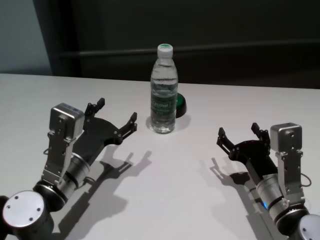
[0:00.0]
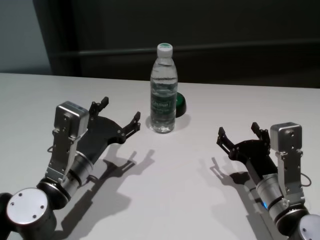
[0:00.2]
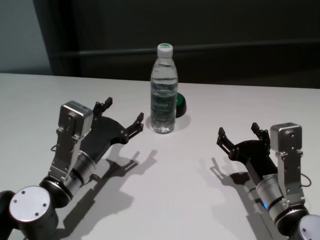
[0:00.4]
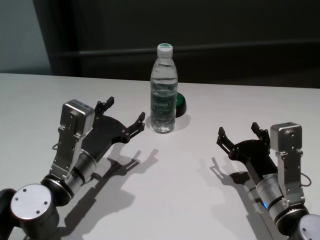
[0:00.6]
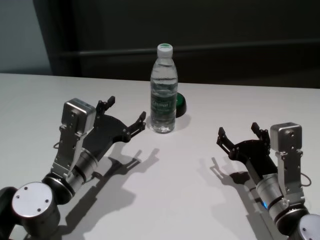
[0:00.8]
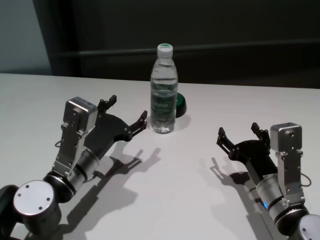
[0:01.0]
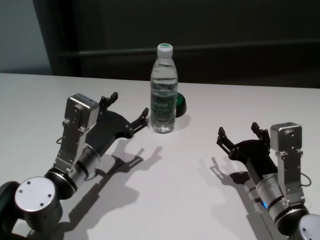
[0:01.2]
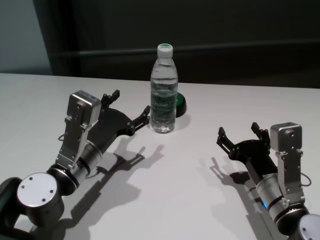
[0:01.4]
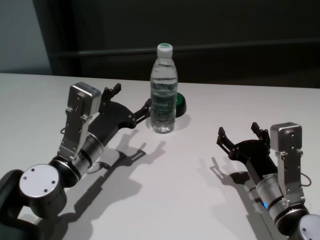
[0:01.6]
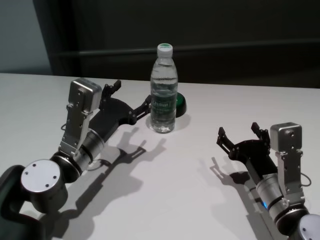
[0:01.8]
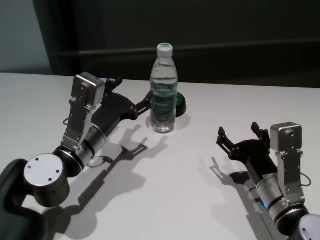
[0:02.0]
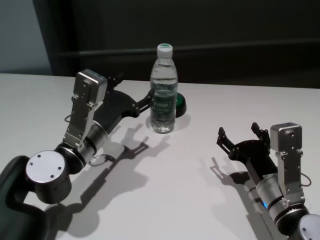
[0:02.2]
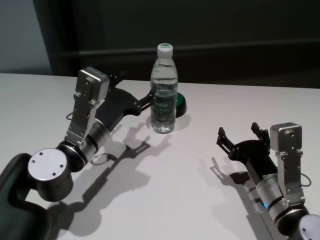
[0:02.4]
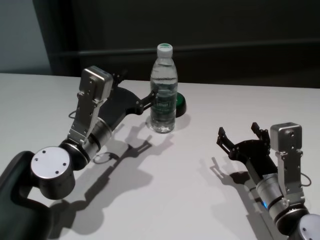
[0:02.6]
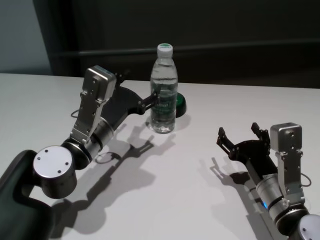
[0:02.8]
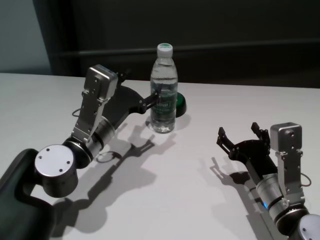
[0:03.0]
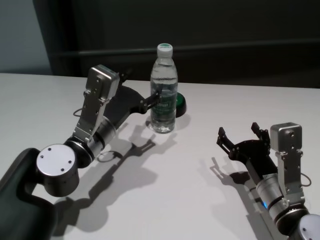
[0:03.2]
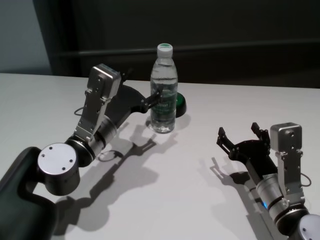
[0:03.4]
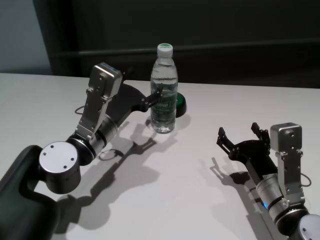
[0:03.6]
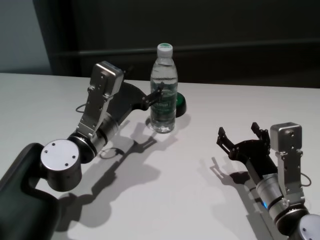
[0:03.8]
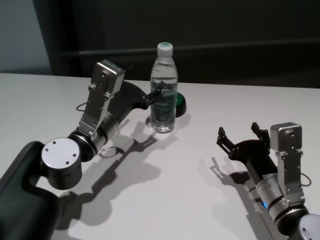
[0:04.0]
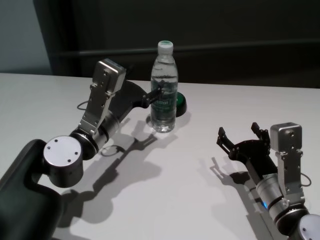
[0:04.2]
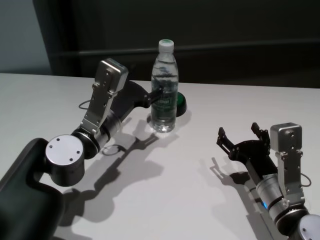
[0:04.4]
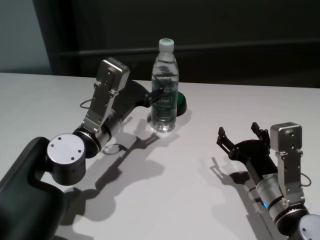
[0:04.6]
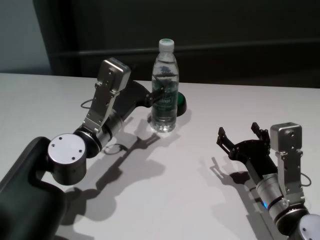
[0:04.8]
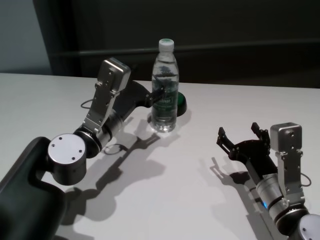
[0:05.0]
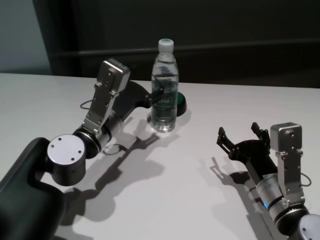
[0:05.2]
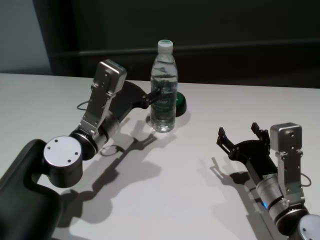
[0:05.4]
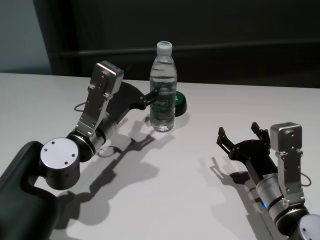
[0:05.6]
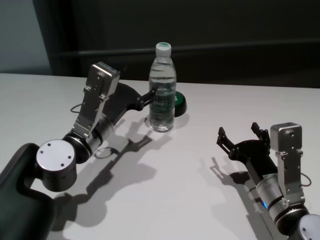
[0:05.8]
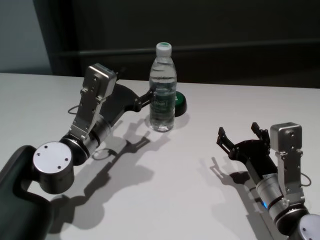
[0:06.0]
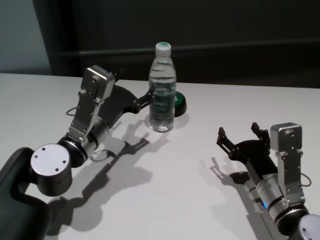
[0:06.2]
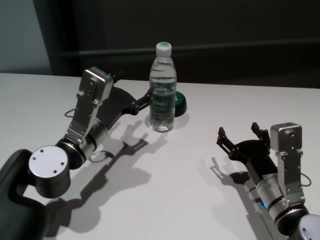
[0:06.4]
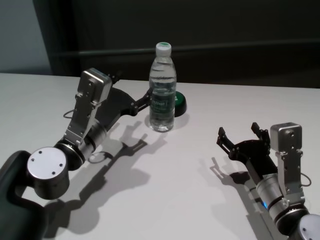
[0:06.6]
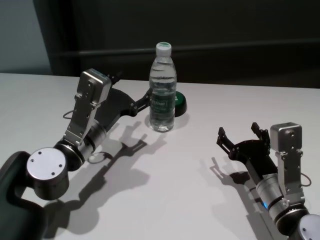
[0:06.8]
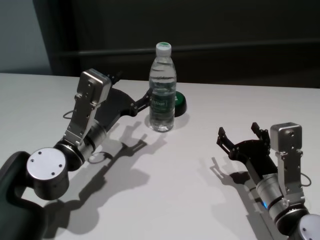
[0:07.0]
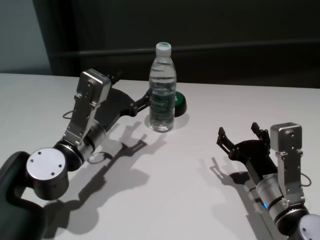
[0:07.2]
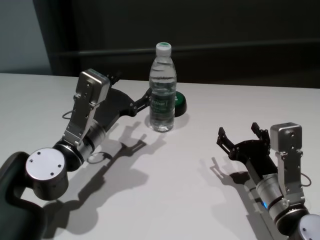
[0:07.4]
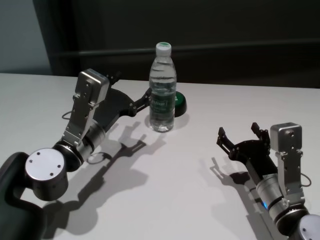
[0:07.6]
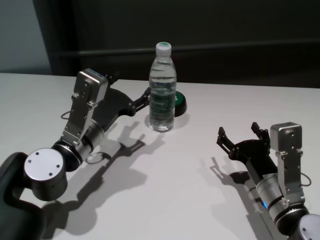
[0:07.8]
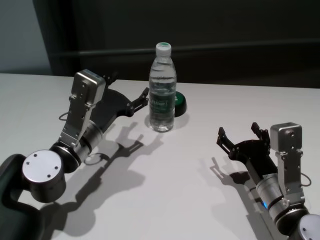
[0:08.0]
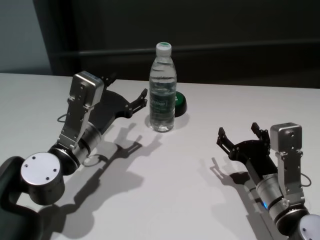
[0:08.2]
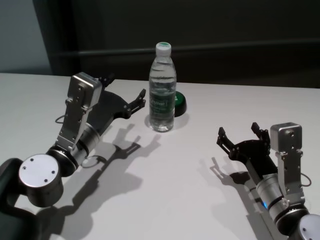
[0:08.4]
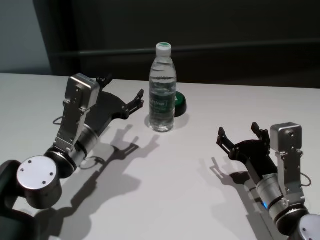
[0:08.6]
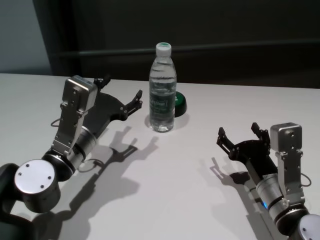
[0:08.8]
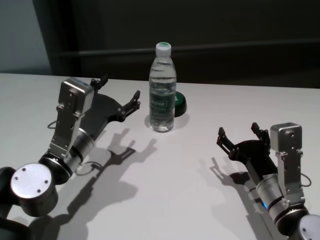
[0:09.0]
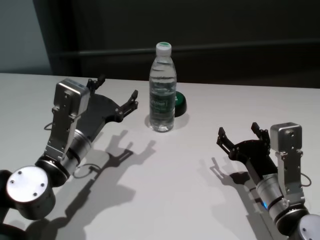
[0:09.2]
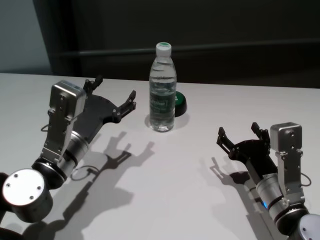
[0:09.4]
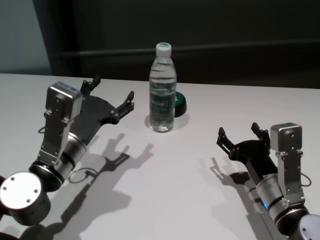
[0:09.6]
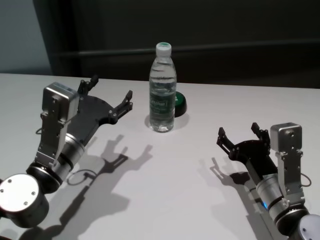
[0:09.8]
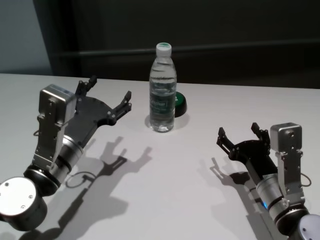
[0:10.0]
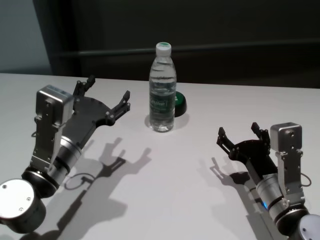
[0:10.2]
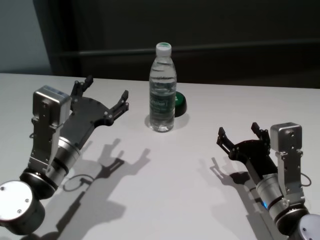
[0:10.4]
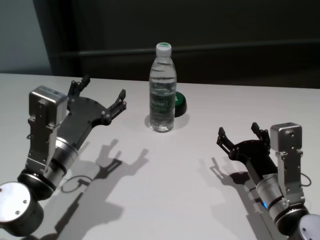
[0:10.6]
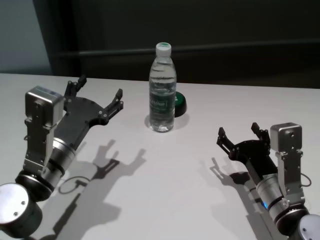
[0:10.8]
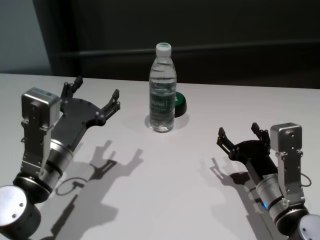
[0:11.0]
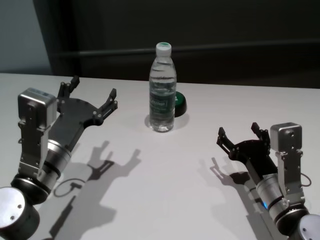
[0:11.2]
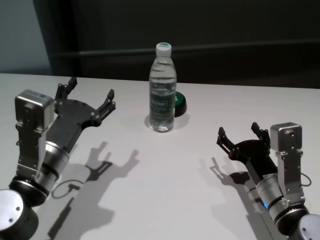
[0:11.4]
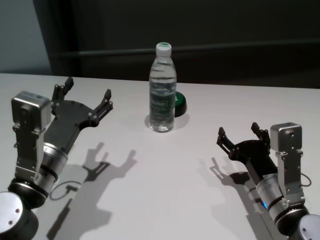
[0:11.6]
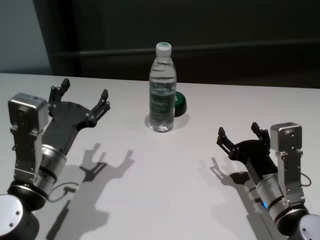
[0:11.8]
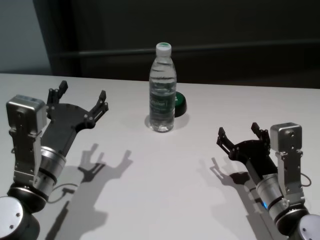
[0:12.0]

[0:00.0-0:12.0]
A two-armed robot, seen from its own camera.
Task of the whole recording: return to a safe position after touching an obstacle with your arm on the white table.
Step, 0:00.0 to 0:08.0: Touch the bottle with left gripper.

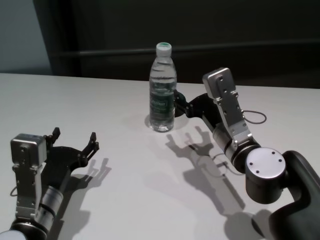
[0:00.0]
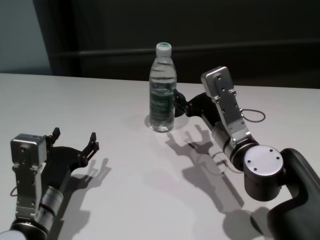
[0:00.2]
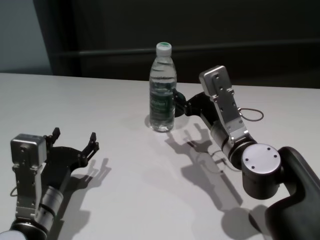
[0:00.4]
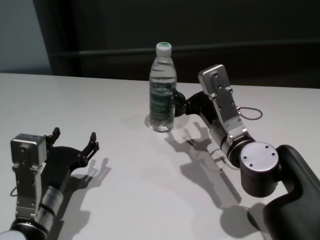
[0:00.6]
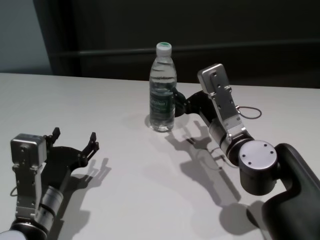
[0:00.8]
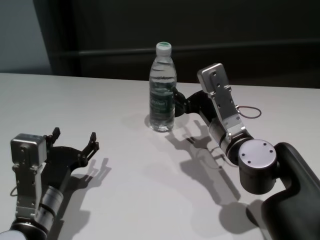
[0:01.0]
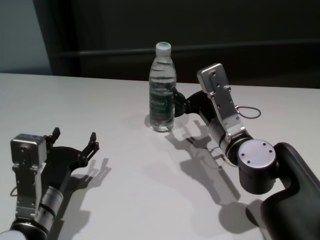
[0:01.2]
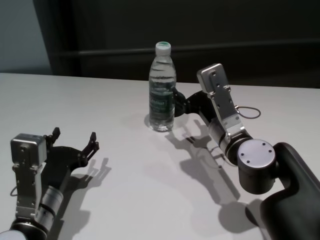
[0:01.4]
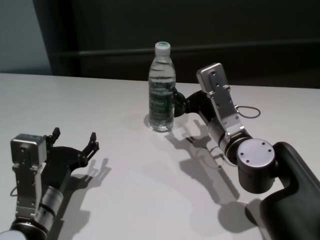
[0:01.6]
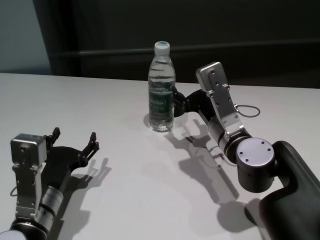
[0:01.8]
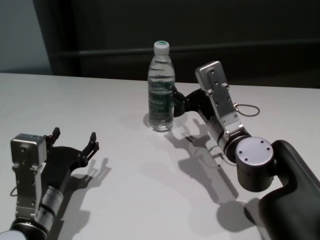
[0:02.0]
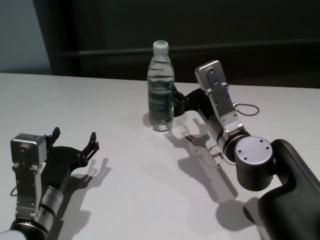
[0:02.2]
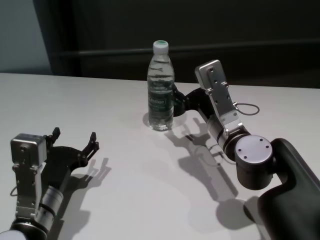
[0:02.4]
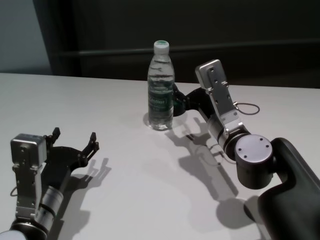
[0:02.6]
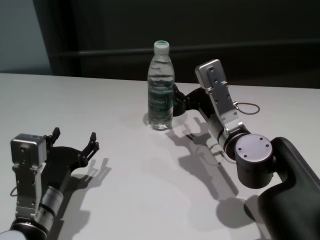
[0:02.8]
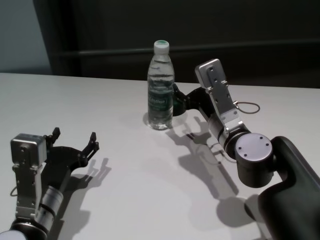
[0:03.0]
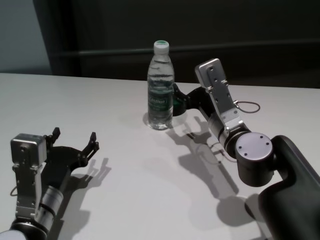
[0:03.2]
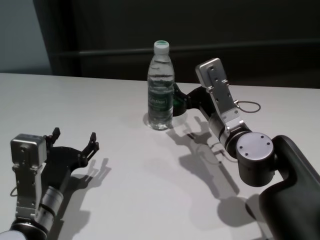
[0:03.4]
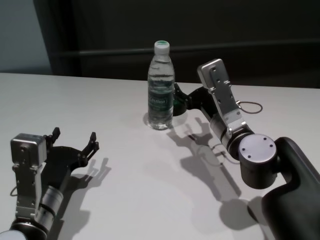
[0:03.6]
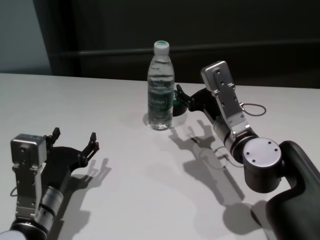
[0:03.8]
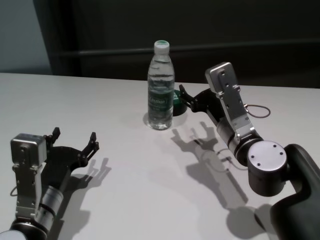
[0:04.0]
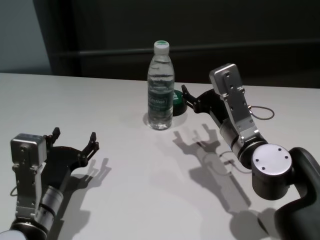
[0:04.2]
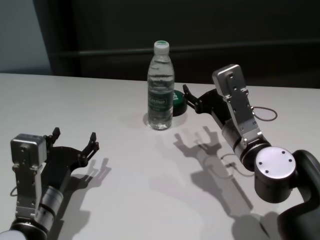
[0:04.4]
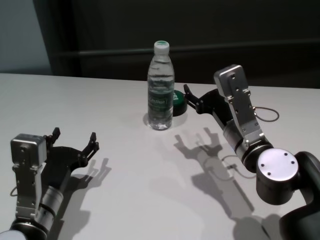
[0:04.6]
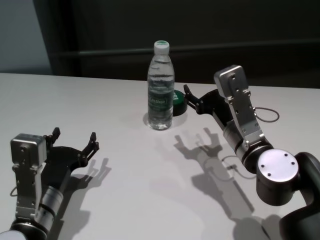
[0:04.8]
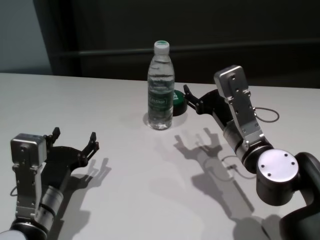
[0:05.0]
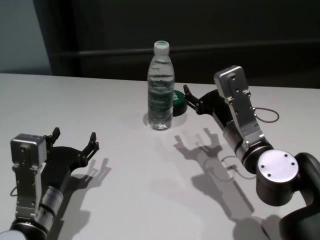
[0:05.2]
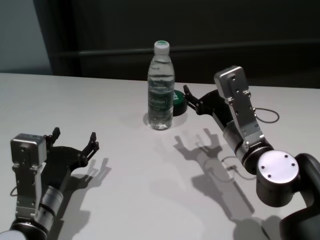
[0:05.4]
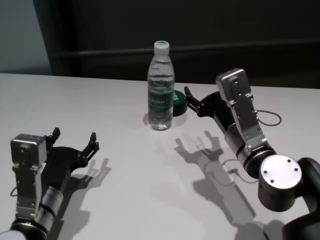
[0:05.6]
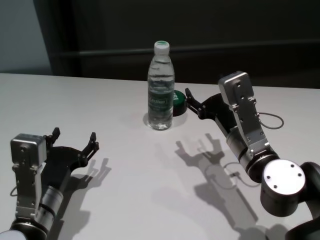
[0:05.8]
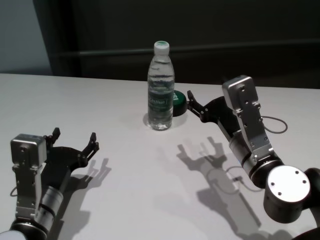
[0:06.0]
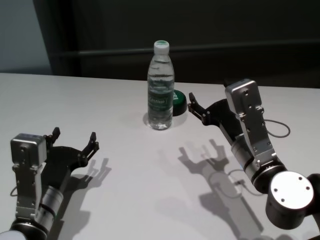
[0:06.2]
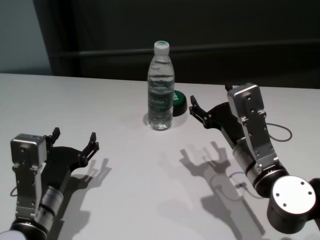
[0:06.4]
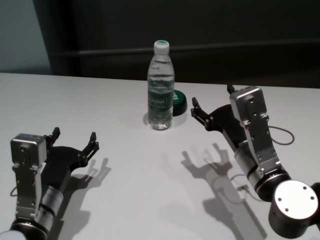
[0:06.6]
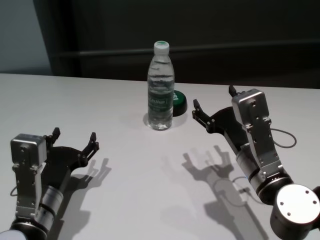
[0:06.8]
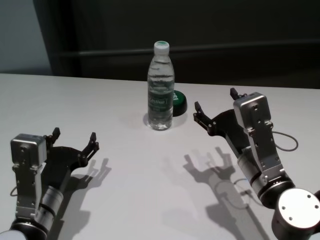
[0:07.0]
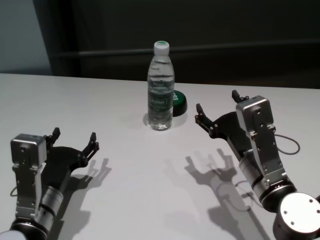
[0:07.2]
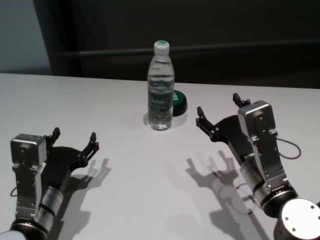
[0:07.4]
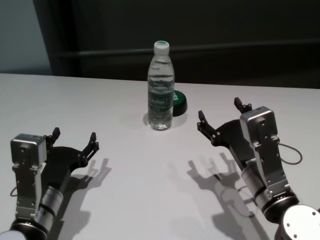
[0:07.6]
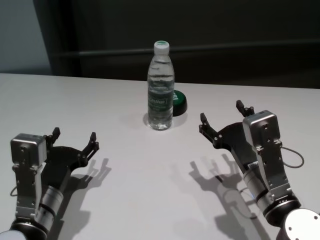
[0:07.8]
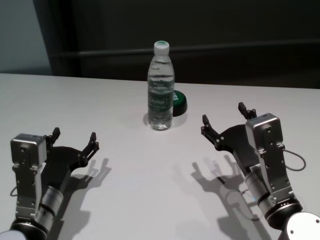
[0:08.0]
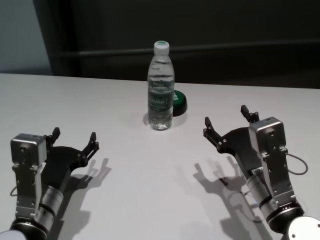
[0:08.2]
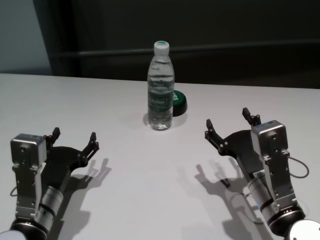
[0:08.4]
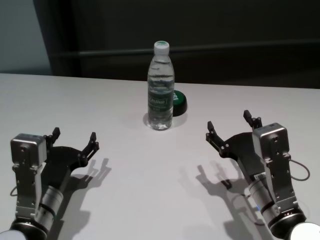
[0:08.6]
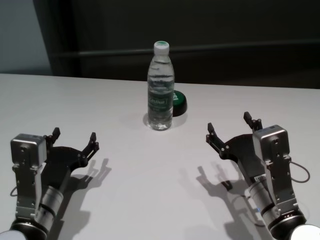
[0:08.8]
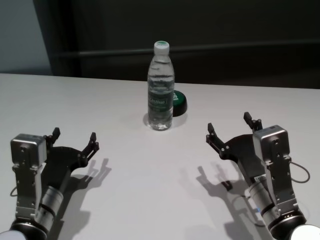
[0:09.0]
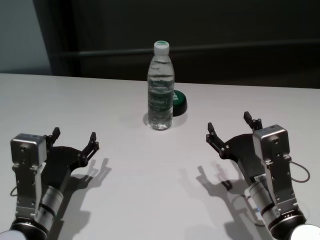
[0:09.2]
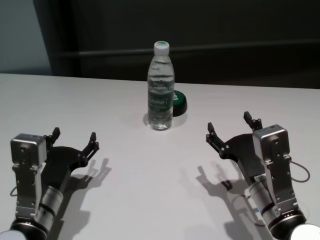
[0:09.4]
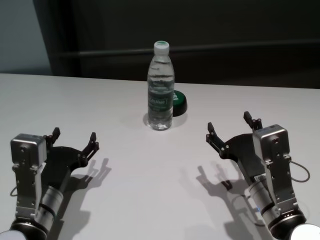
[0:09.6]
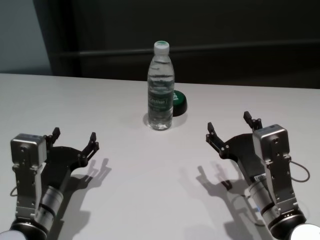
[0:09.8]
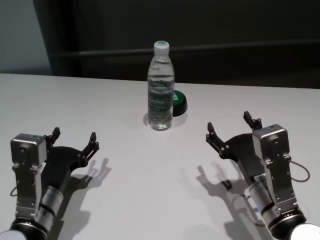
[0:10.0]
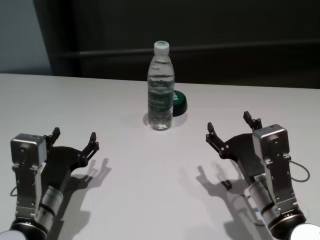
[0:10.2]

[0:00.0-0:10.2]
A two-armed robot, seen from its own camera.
Task of the whole recording: return to a safe position after touching an obstacle with your arm on the white table.
Step, 0:00.0 to 0:03.6: Touch the bottle with right gripper.
